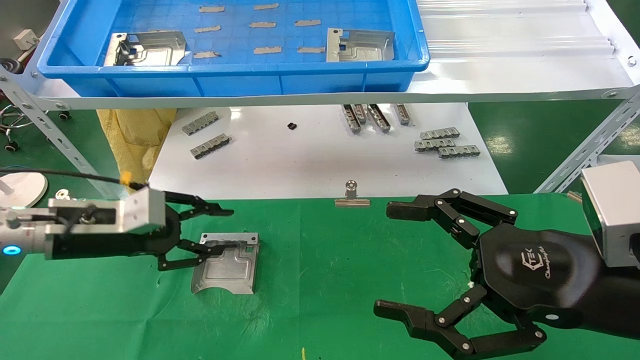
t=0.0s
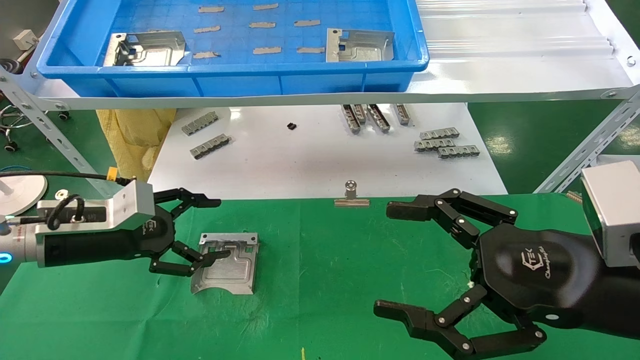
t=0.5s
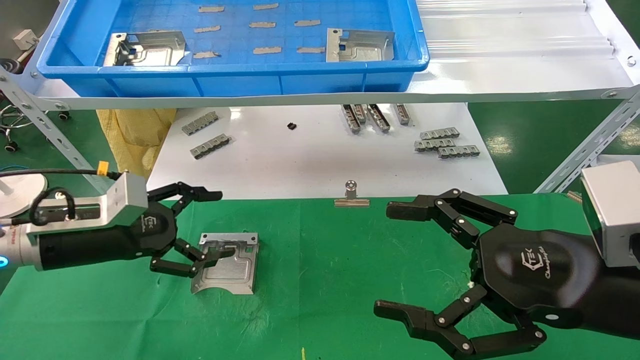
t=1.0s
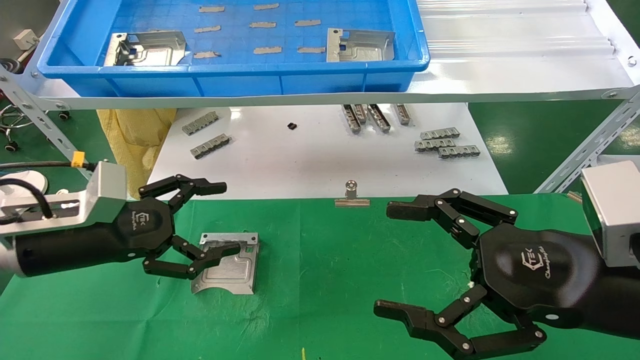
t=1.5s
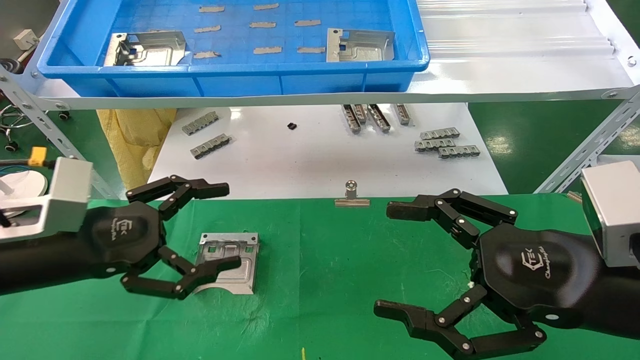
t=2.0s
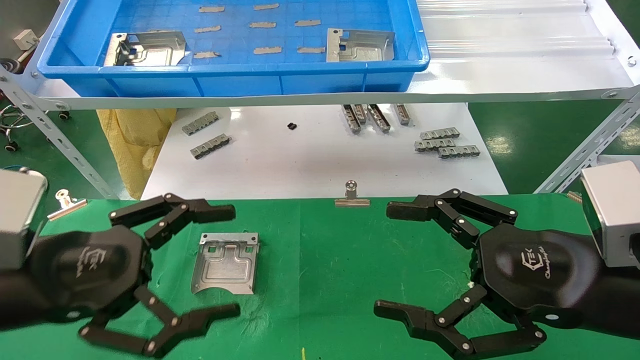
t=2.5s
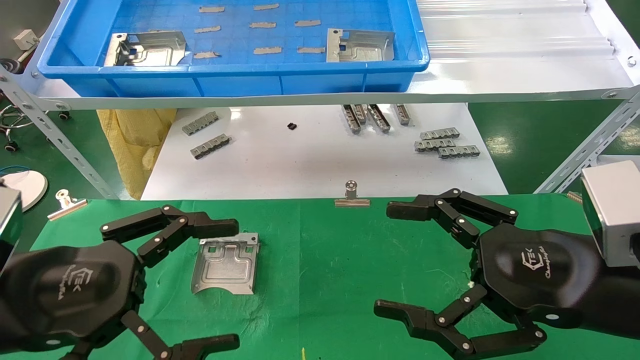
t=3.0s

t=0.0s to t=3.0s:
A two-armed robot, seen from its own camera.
Task of the whole recording: use the mechanical arm to pick up the parts and place them on the table.
t=0.0s to t=1.5s: The left gripper moves backward, some 5 cm, and opens.
t=1.5s to t=3.0s: The left gripper shifts approximately 15 cm backward.
